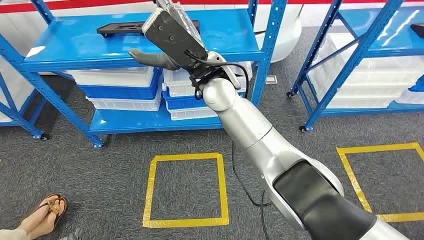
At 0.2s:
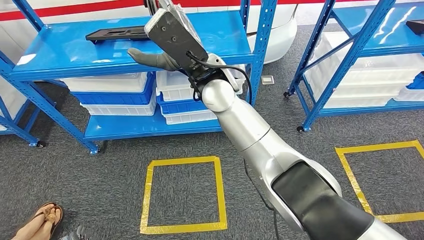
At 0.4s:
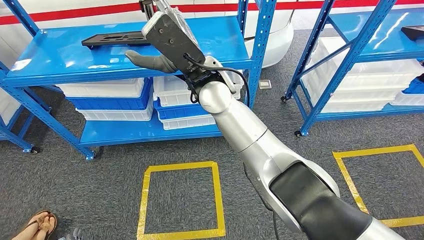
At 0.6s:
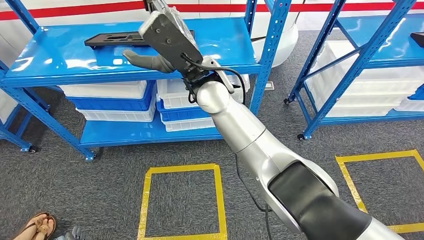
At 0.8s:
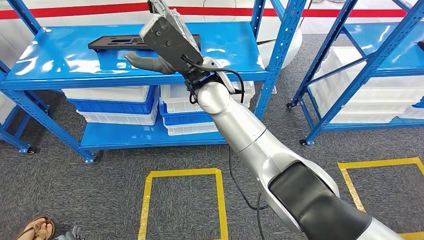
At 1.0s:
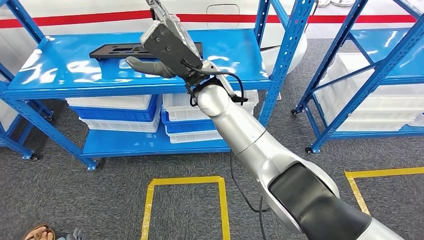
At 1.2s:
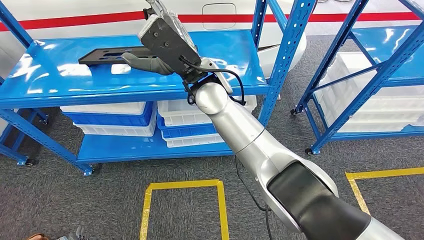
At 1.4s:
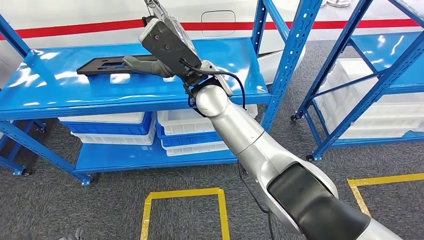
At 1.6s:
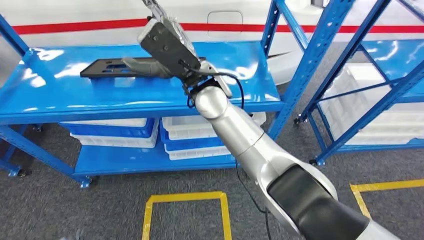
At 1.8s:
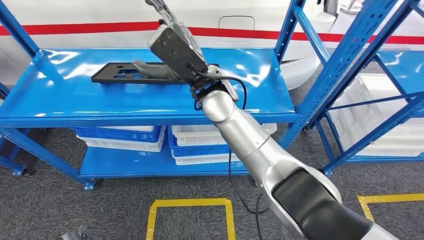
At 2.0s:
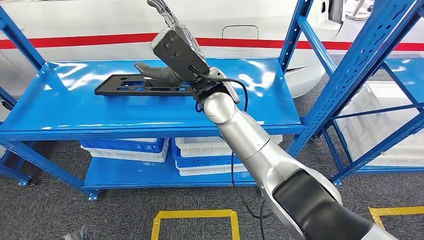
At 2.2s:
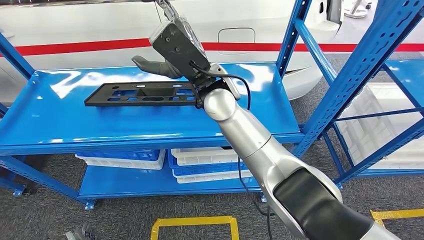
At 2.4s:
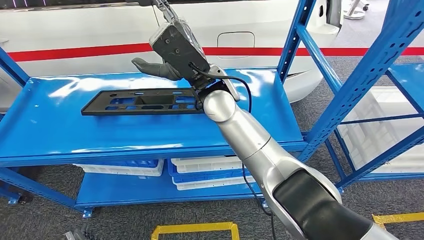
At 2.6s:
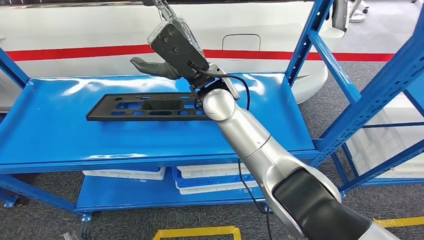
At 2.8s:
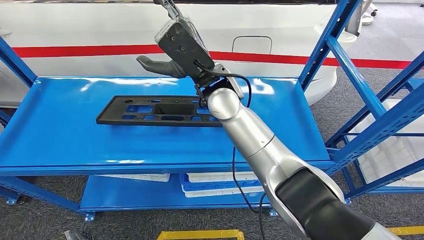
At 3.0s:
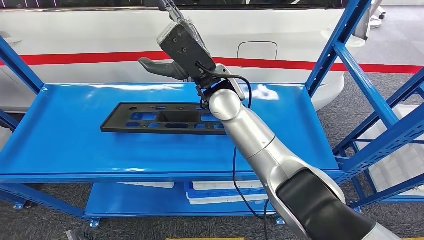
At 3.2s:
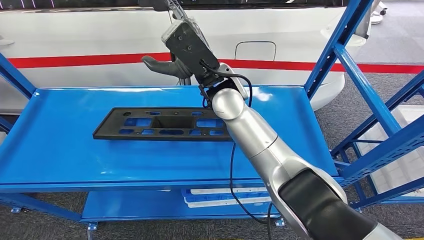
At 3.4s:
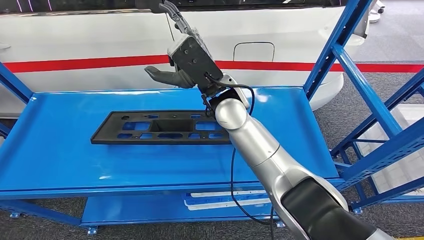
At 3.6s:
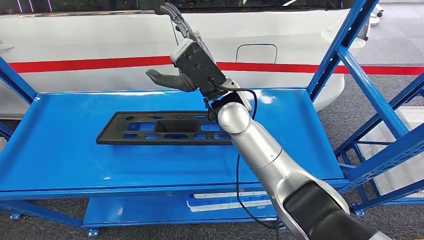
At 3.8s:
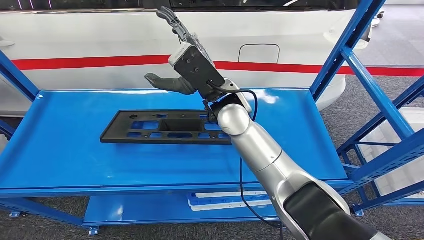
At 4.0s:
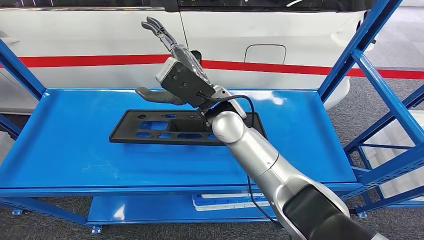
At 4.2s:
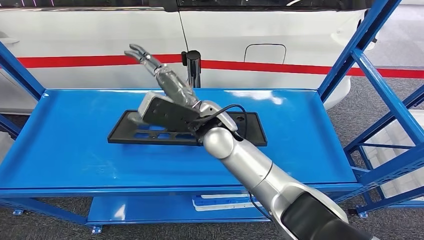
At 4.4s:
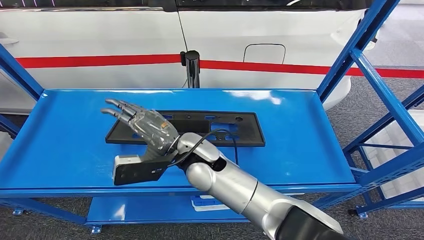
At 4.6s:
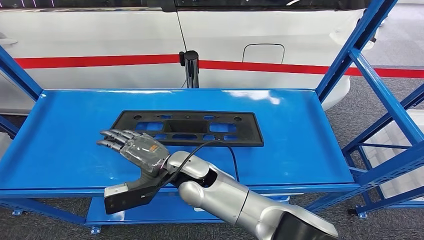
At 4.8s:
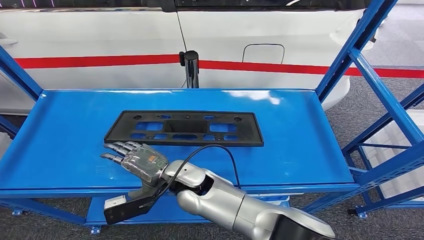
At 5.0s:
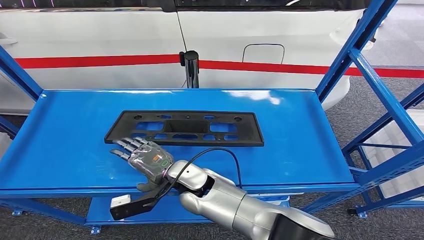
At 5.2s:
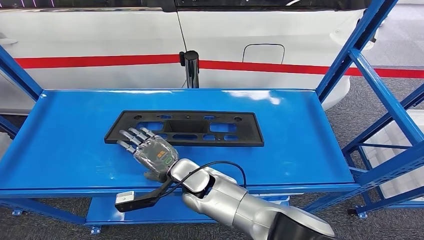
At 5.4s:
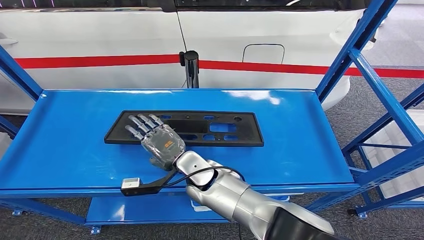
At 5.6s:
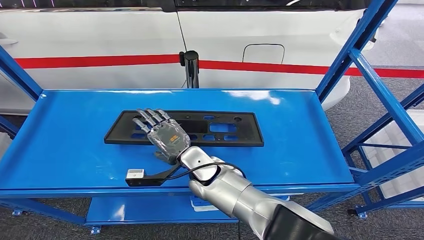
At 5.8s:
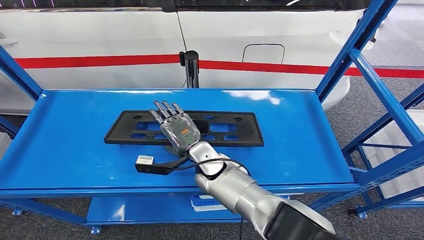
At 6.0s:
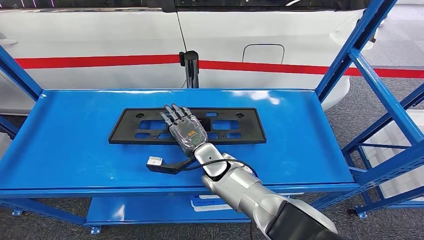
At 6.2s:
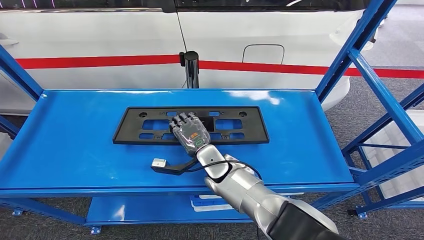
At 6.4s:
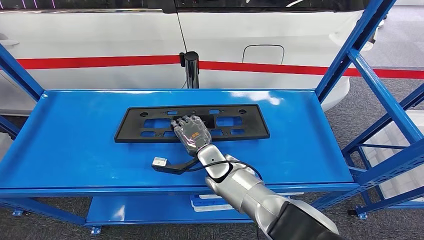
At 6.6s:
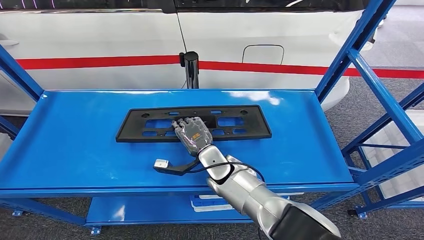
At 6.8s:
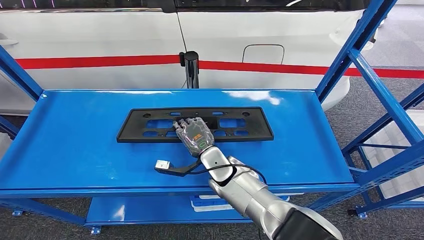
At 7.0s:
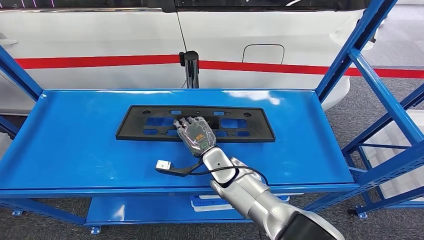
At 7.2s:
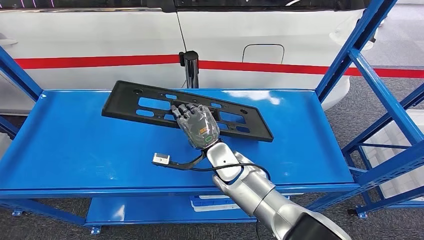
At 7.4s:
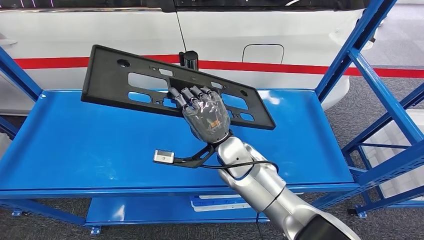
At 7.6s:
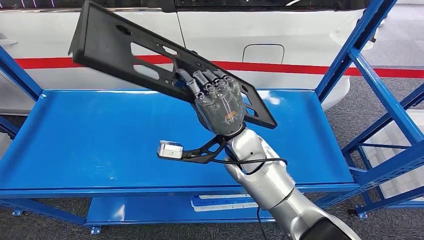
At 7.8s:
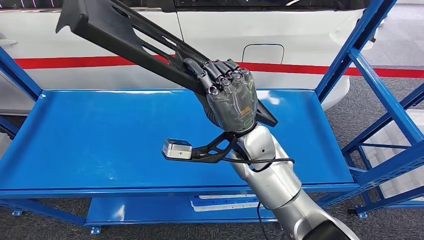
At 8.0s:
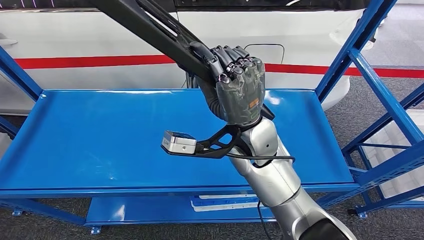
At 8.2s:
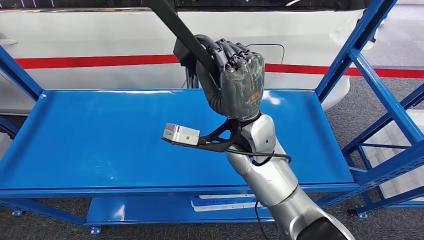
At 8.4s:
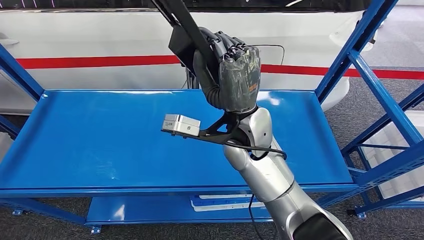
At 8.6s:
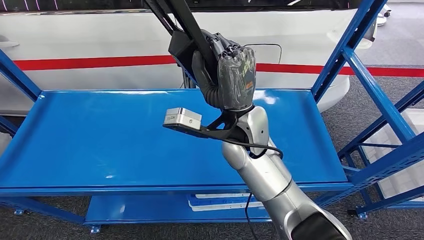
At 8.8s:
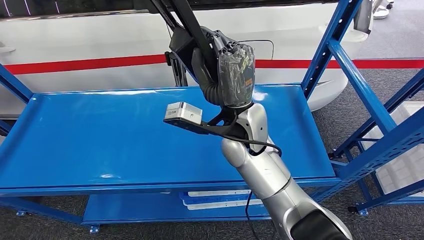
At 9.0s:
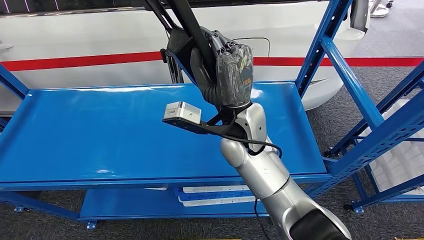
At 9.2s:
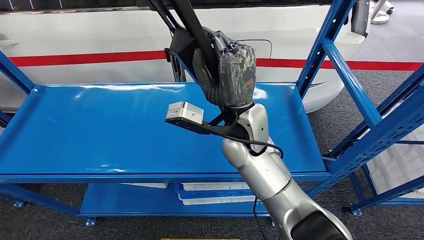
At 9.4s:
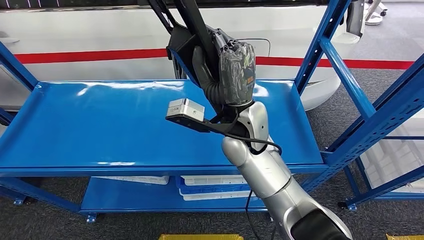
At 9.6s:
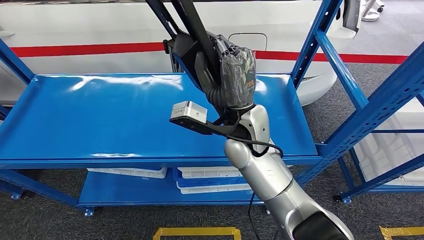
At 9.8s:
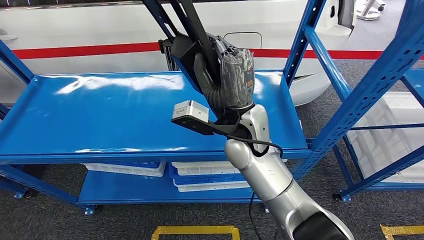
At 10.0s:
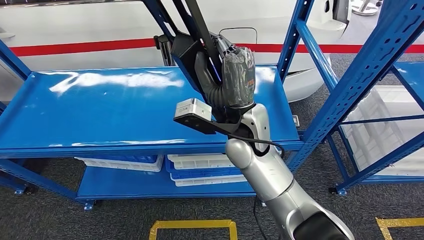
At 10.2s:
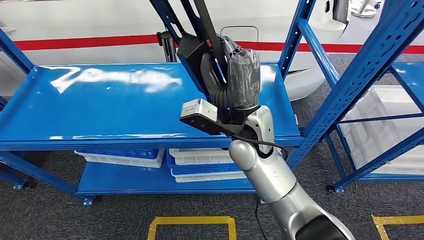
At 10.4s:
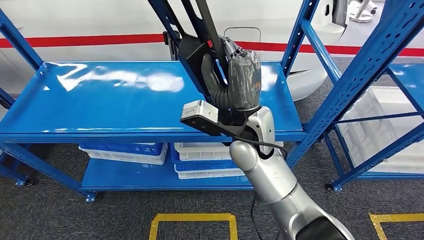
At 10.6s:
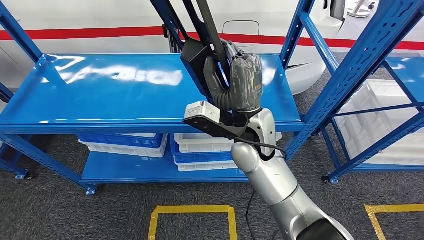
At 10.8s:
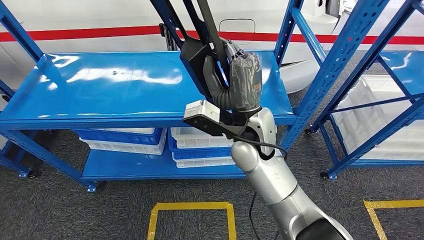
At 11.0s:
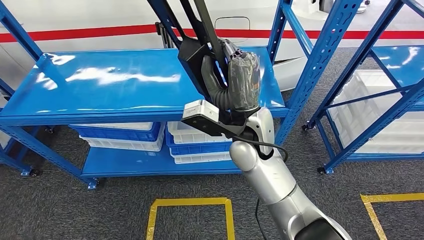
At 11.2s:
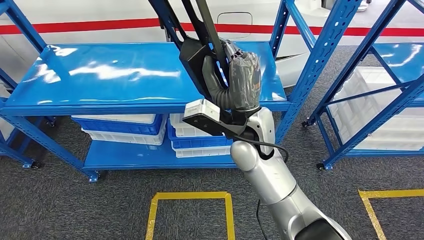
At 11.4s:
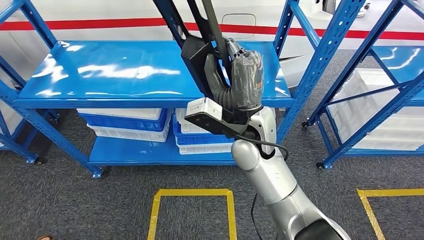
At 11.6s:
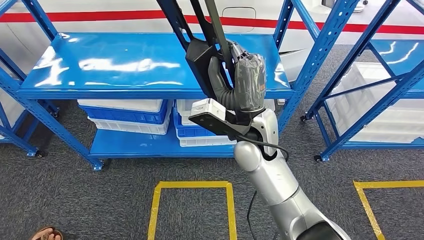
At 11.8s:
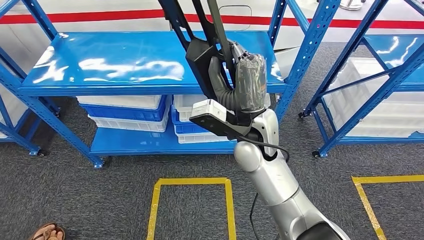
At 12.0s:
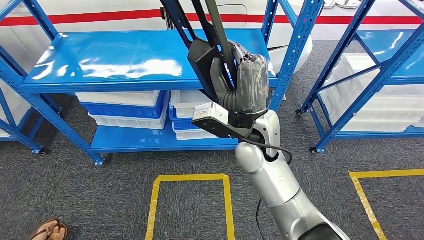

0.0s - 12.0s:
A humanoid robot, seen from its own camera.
Step, 0.0s - 11.0s: Pick up the large material from the shelf.
4.4s - 6.0s: The right hand heads downward, covering about 10 cm.

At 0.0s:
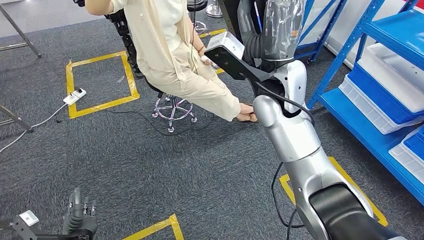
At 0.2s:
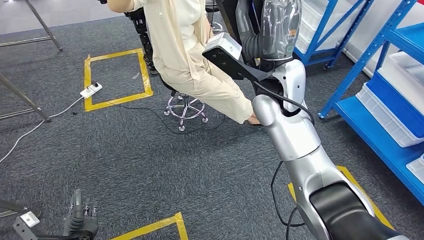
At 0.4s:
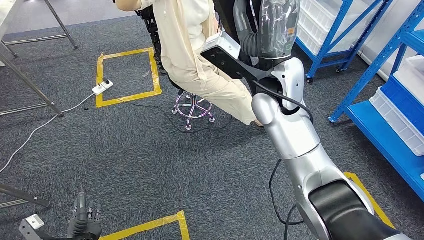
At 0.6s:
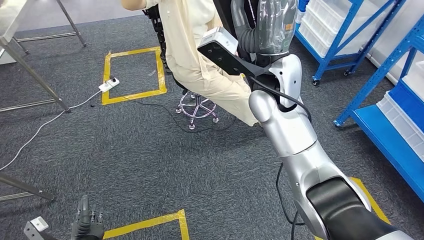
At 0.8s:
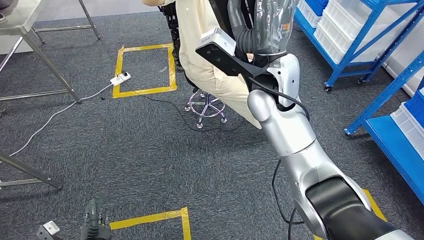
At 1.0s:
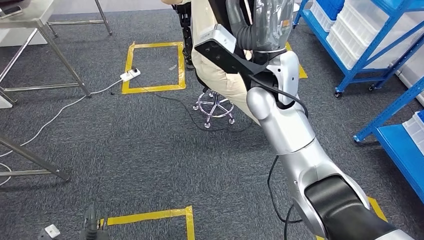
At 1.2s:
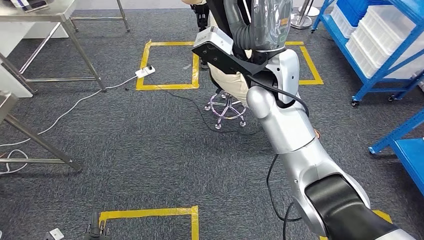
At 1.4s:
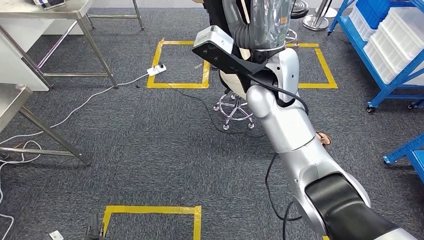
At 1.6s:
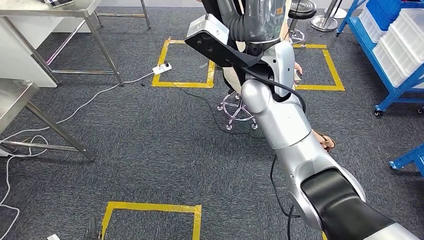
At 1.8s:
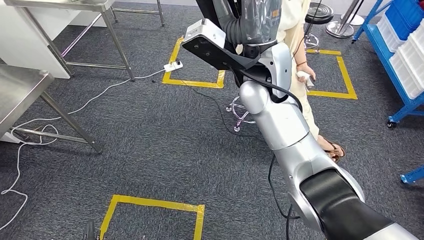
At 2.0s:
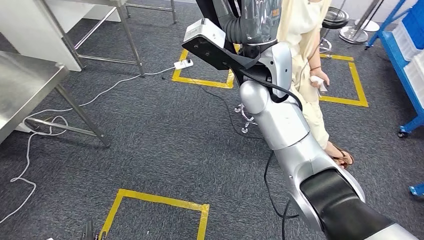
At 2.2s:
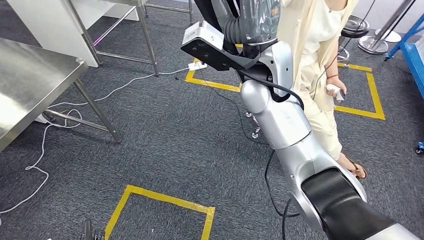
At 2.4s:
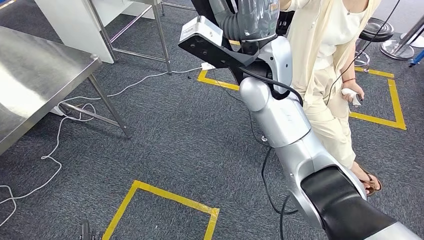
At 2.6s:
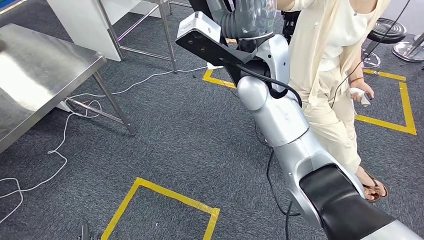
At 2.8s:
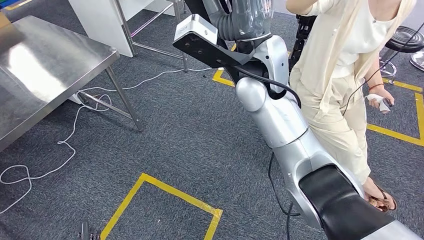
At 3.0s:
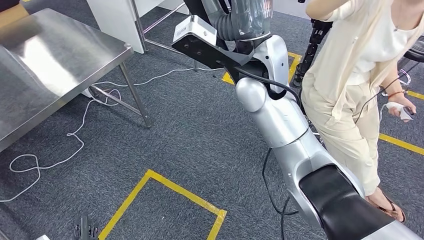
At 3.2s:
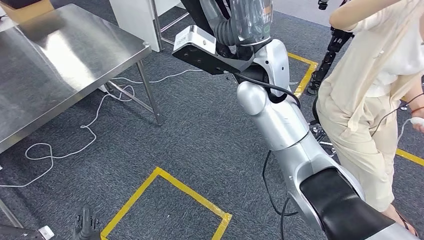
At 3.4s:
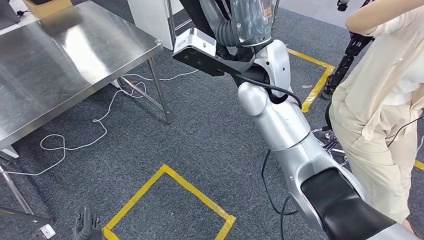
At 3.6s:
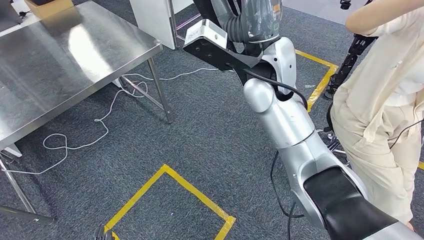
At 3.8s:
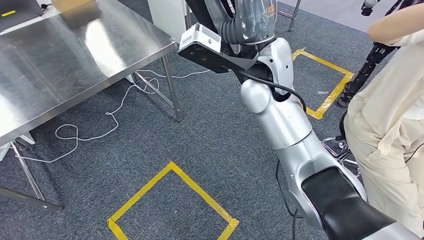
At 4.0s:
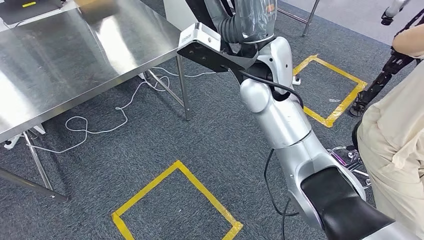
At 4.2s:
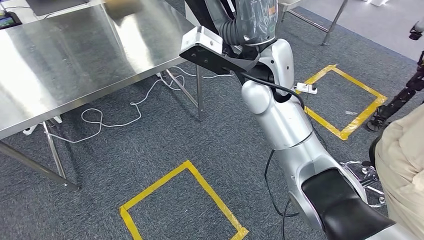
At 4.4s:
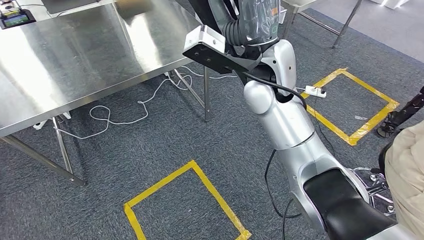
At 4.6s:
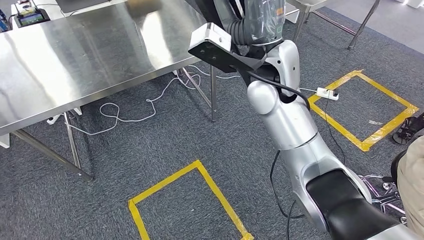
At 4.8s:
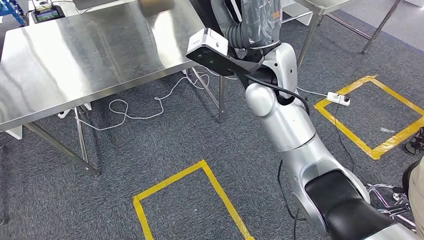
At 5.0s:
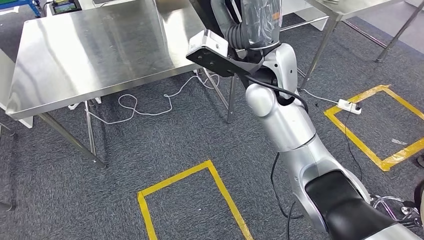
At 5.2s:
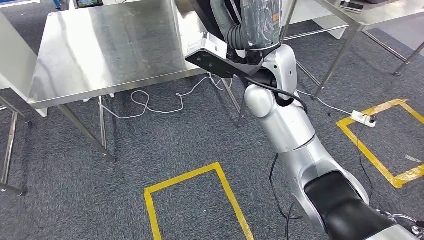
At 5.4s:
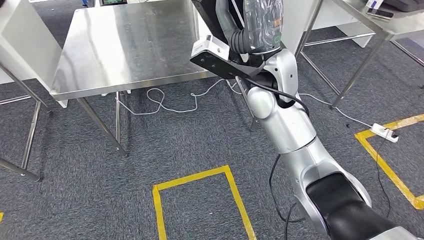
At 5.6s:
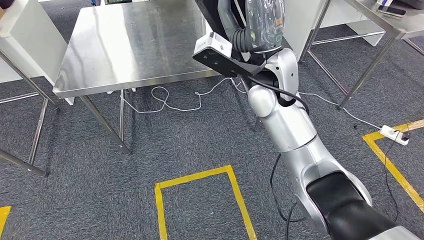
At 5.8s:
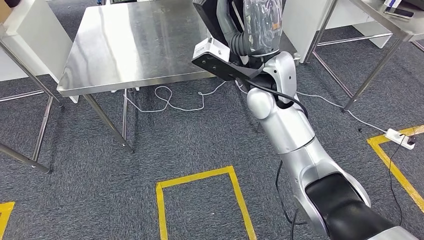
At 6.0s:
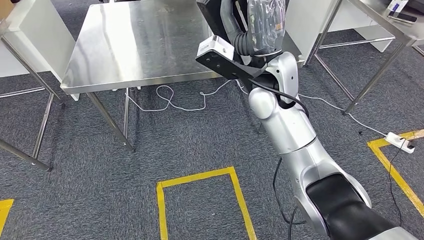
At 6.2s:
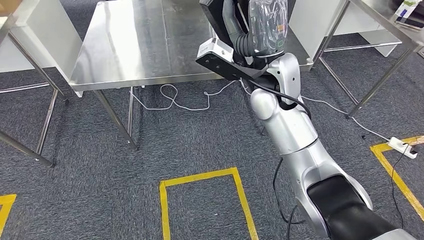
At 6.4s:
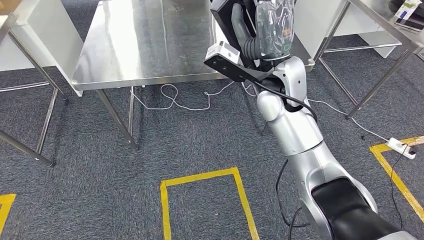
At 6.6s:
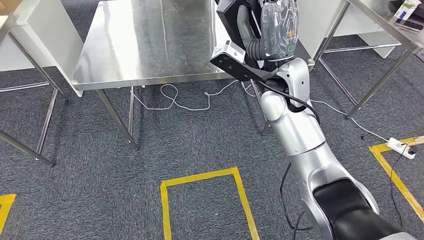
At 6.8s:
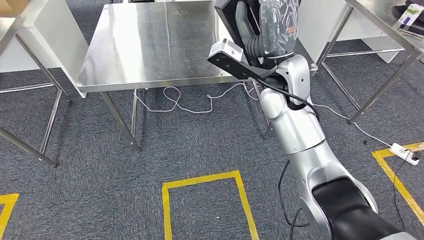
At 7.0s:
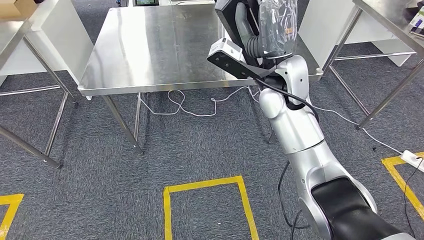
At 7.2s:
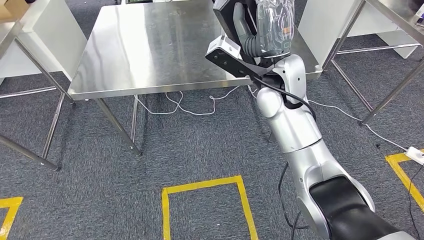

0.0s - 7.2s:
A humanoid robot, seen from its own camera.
Step, 0.0s - 6.8s: Move the large material to the workbench.
